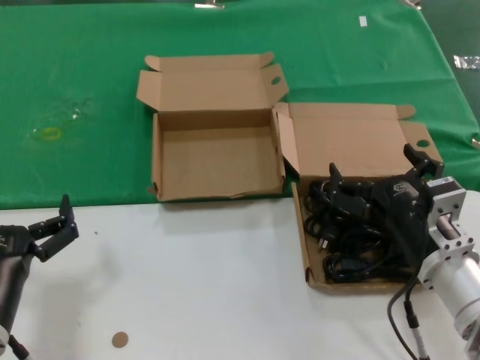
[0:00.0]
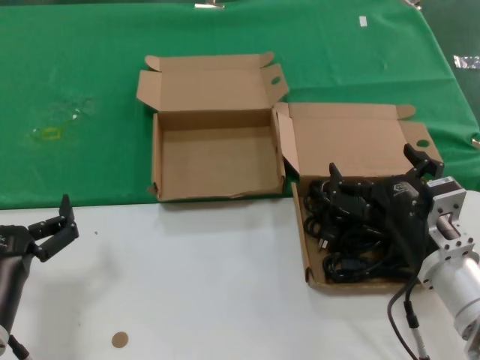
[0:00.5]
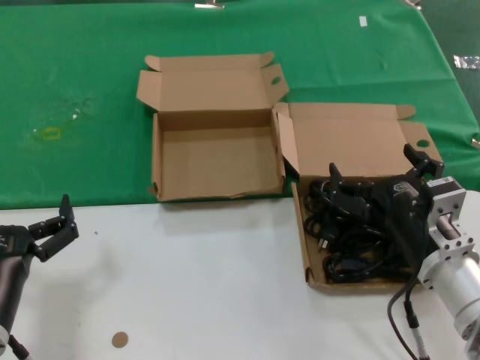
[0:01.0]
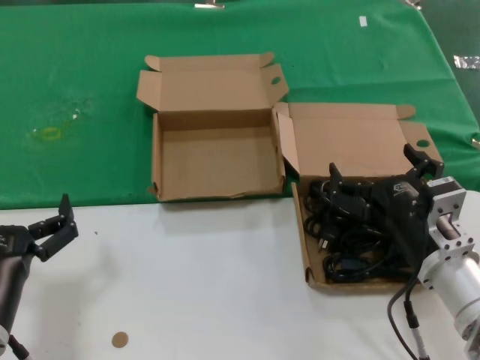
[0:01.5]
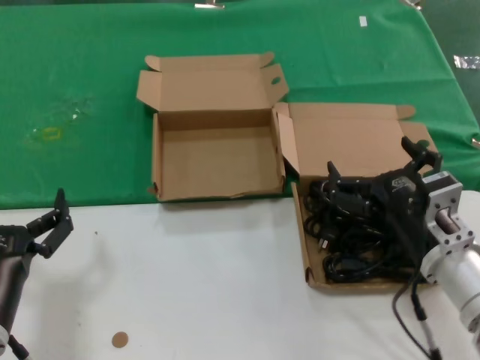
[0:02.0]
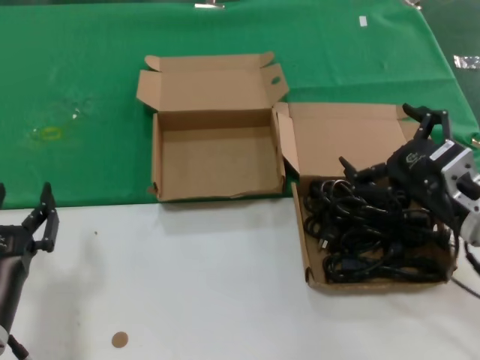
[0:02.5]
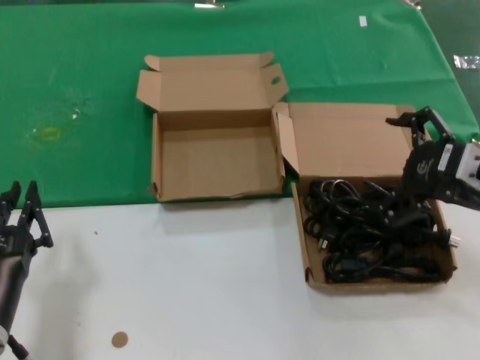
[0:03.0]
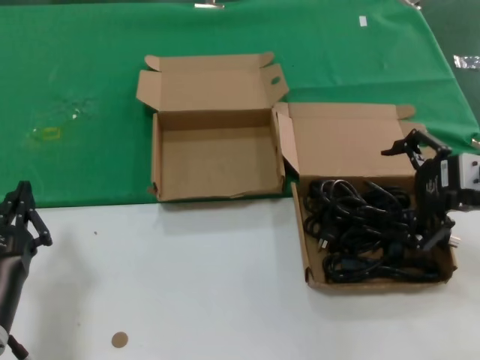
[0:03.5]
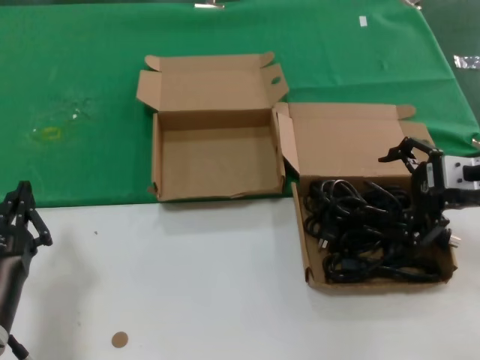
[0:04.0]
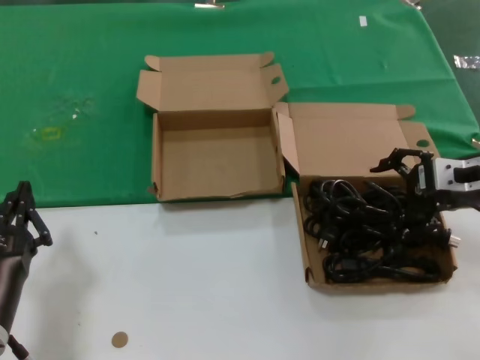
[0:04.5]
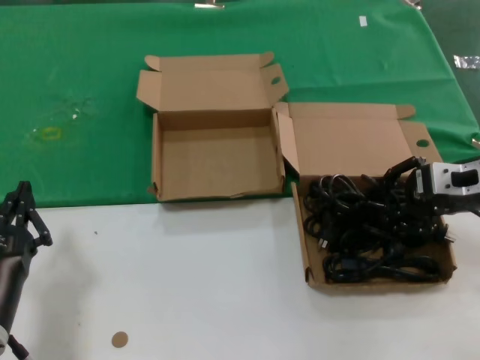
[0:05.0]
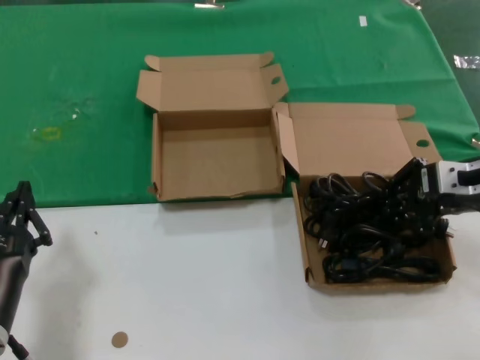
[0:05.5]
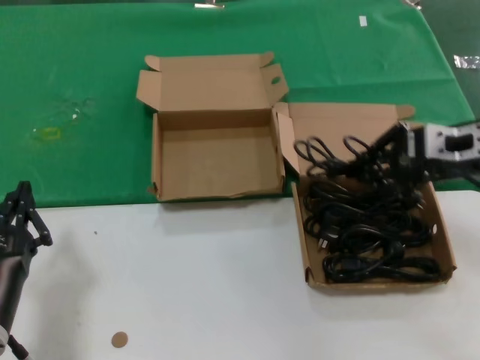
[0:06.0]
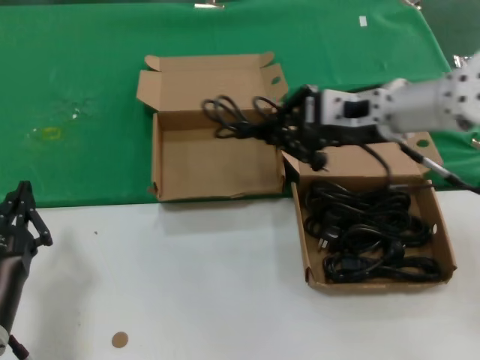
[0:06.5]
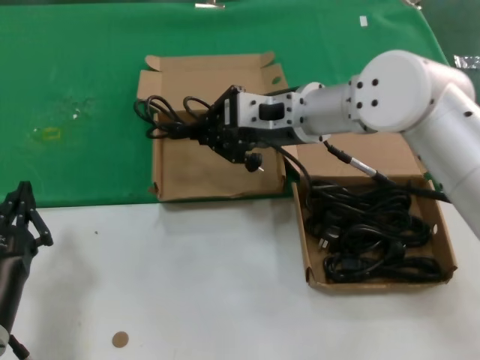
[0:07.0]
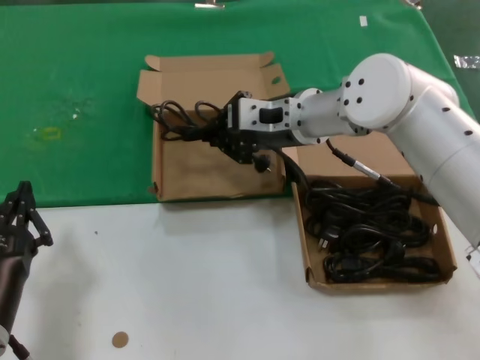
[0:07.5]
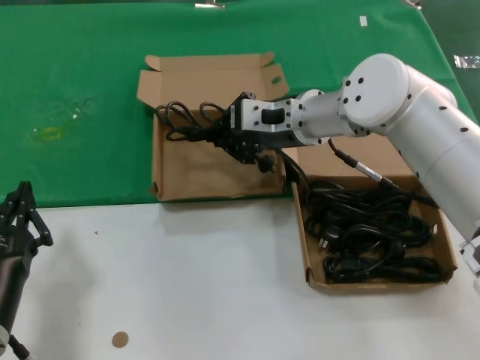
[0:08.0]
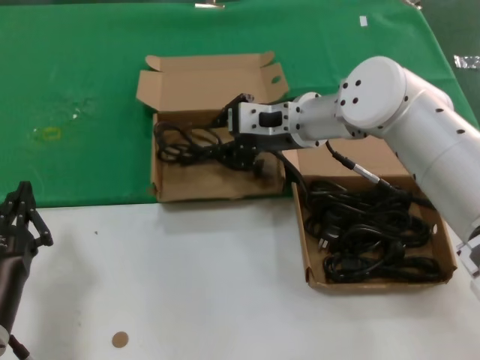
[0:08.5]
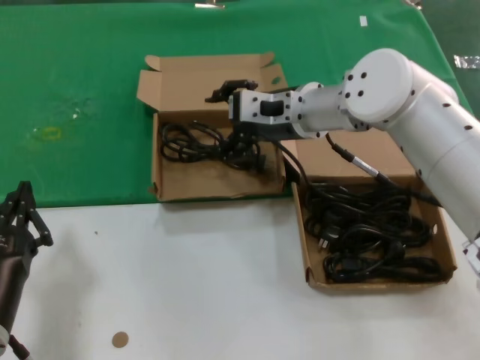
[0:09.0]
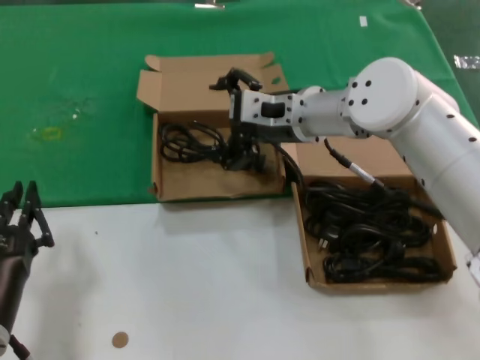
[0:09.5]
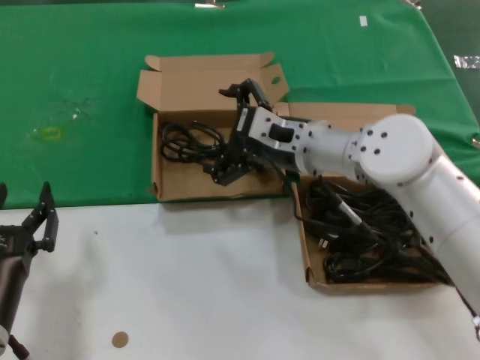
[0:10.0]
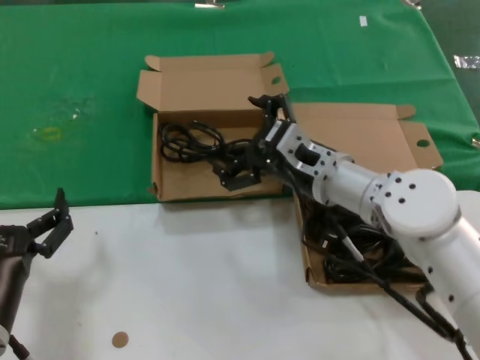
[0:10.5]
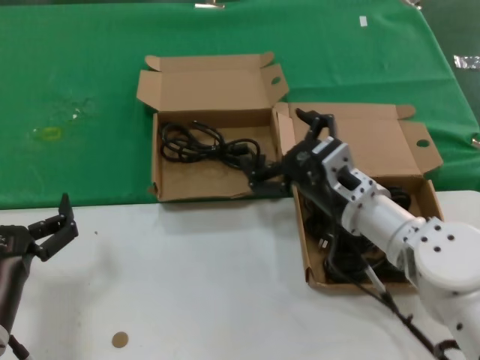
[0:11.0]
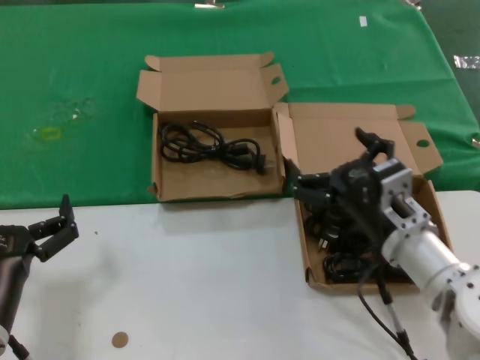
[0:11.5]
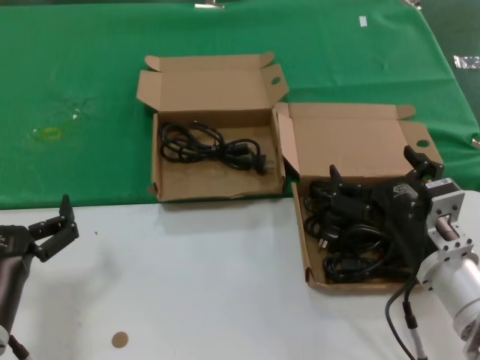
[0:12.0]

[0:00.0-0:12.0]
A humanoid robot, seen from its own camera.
Task of the whole recording: take the parts from the box containing them and put them into an empty box.
Step, 0:00.0 to 0:05.0: Grasp the data cable.
Step, 0:06.0 to 0:08.5: Place the data cable in the another box.
0:00.0 to 0:02.0: Both hands stay put.
0:02.0 to 0:04.0: The right hand goes roughly 20 cm upward, to the right and forward.
0:04.0 to 0:06.0: The hands move only a little.
0:06.0 to 0:08.0: The right hand is displaced to the left and forward by about 25 cm.
0:08.0 to 0:10.0: The right hand changes place by approximately 5 cm.
0:10.0 to 0:12.0: The right hand is displaced backward, downward and to the right by approximately 25 cm.

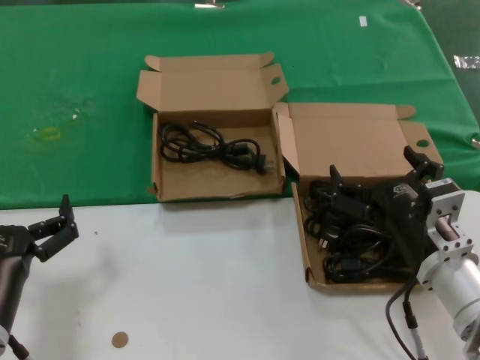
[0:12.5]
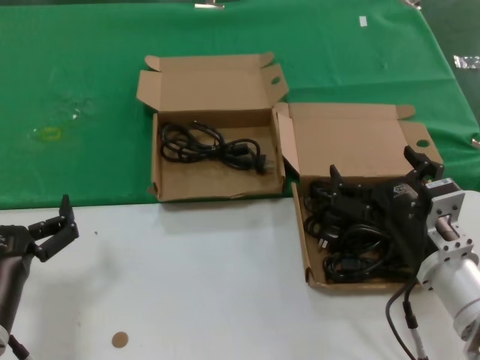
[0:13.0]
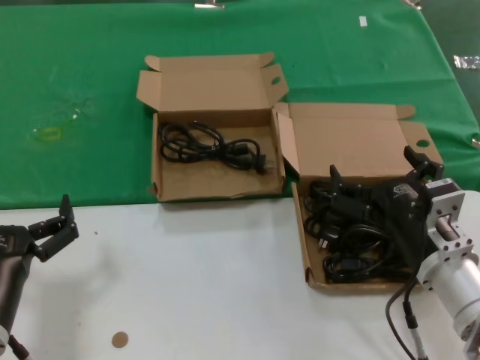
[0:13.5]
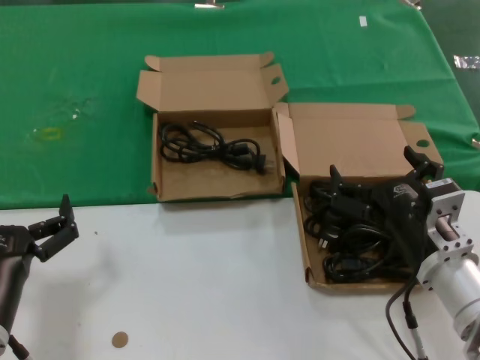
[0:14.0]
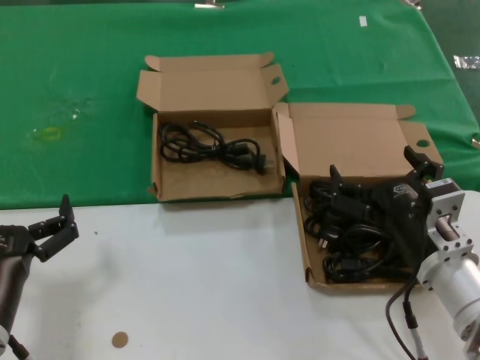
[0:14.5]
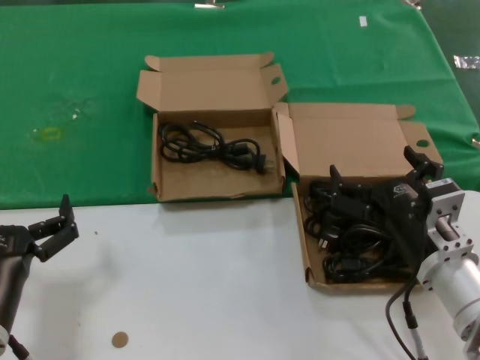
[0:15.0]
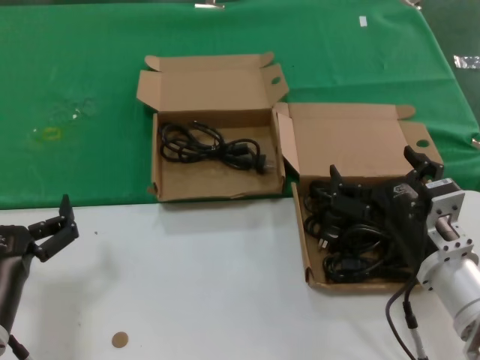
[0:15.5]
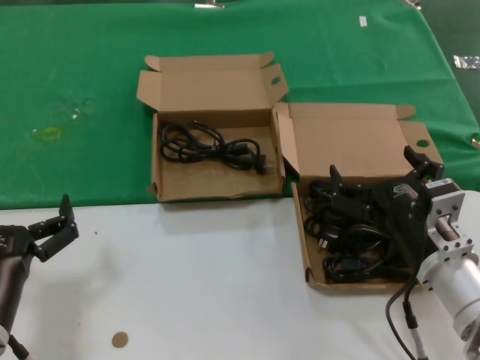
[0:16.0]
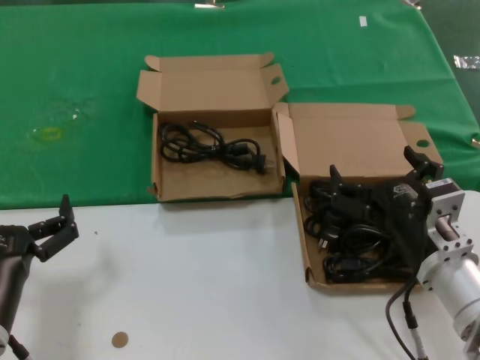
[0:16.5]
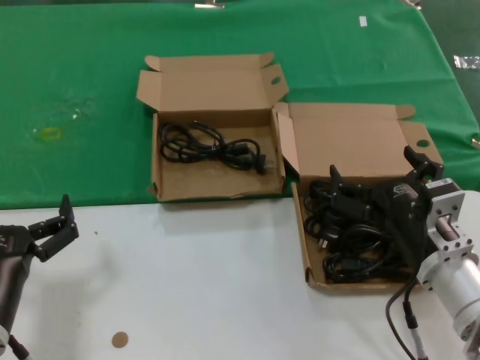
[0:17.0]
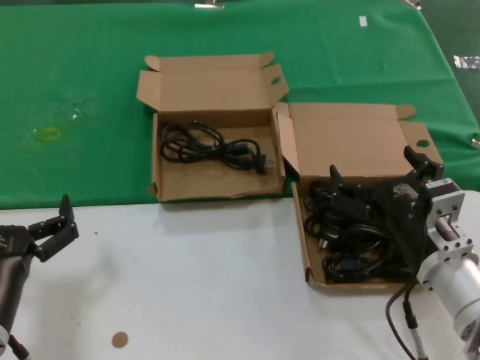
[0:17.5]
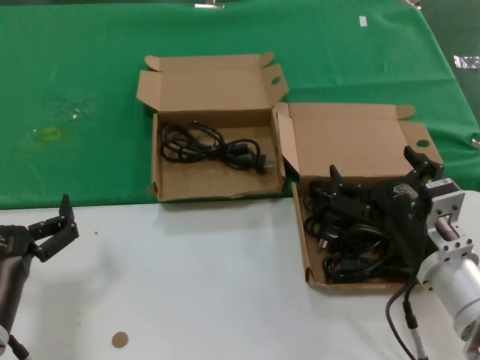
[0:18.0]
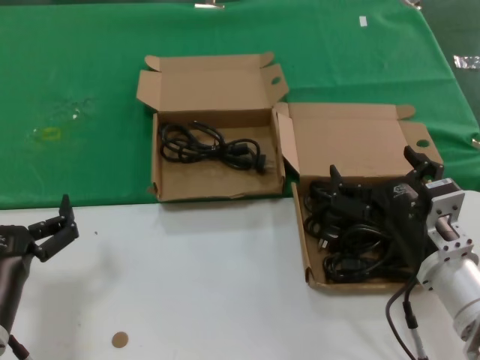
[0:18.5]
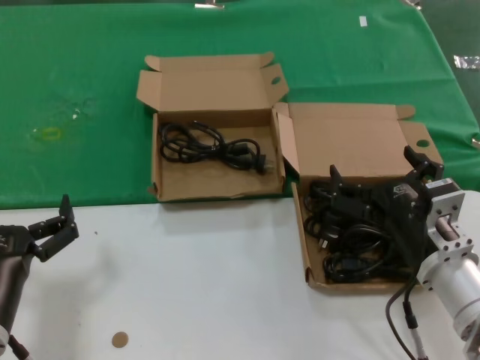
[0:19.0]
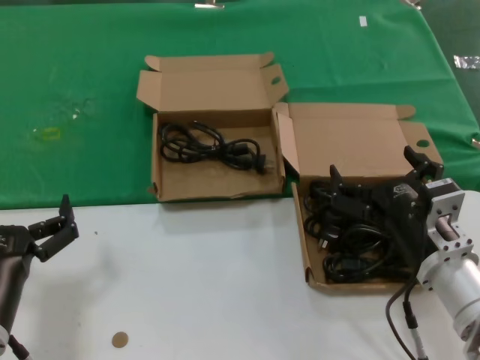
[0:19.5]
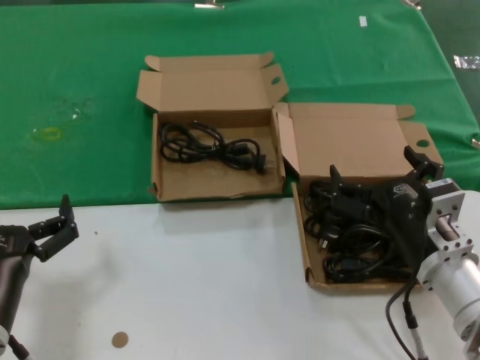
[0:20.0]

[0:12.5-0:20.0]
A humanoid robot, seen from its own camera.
Task of the whole recording: take the parts from the box containing them and put them into an empty box.
0:12.5 to 0:20.0: Neither hand changes place.

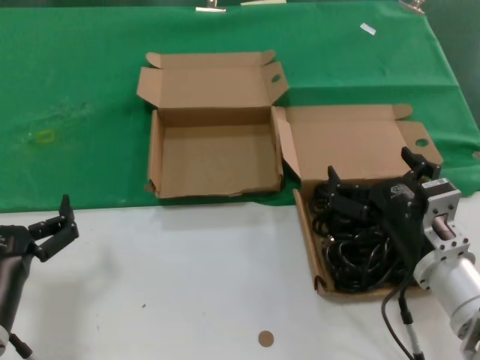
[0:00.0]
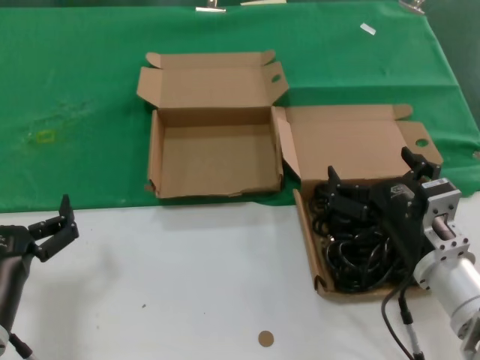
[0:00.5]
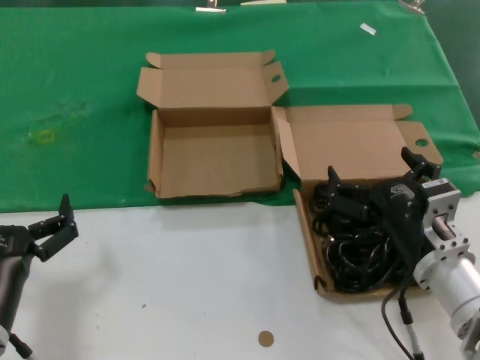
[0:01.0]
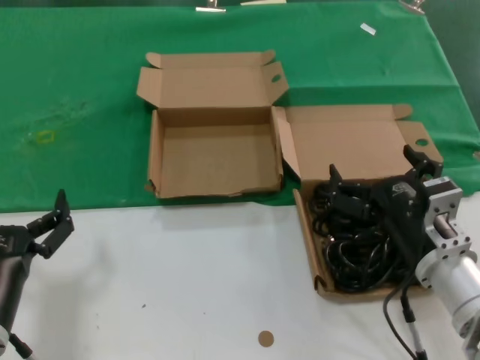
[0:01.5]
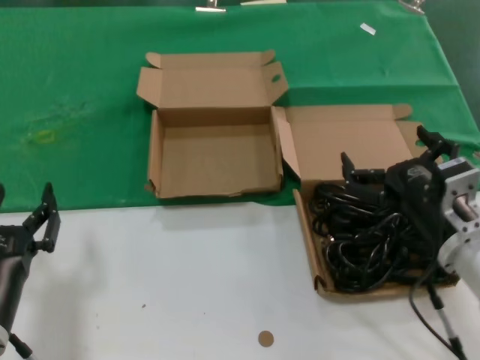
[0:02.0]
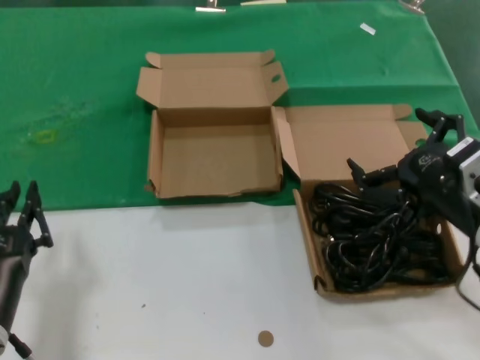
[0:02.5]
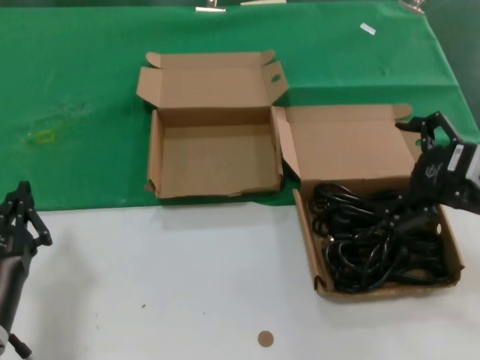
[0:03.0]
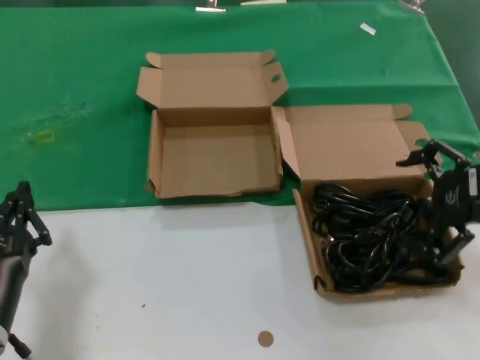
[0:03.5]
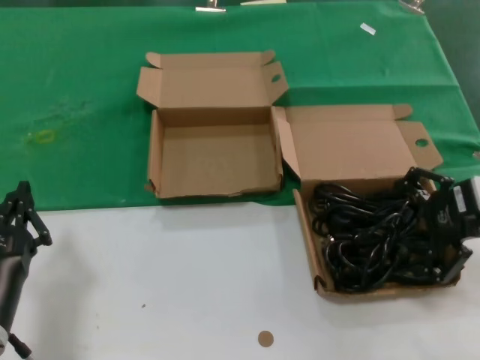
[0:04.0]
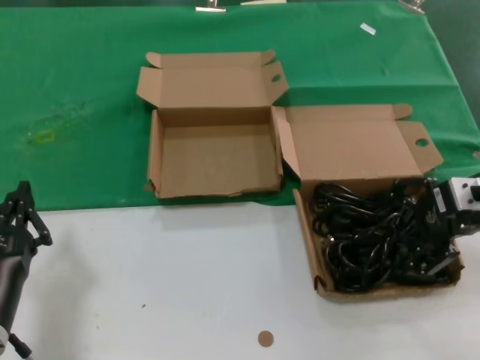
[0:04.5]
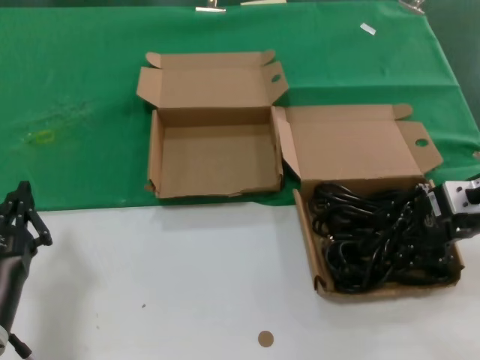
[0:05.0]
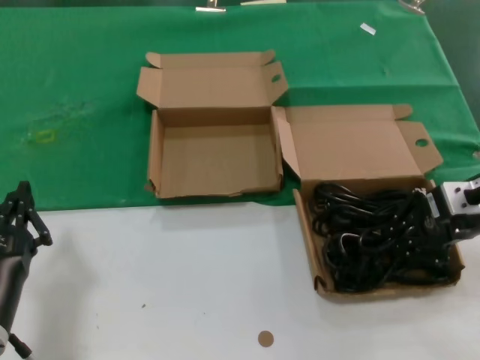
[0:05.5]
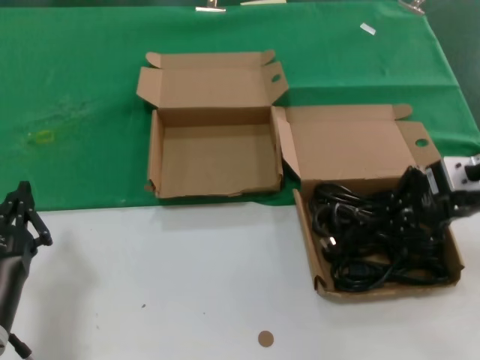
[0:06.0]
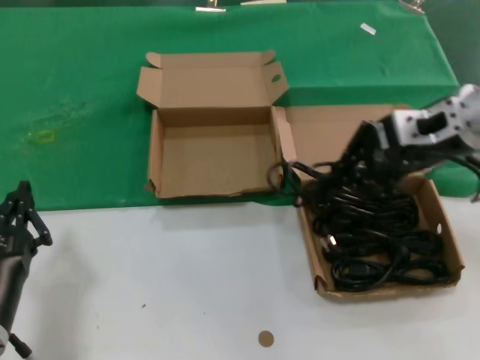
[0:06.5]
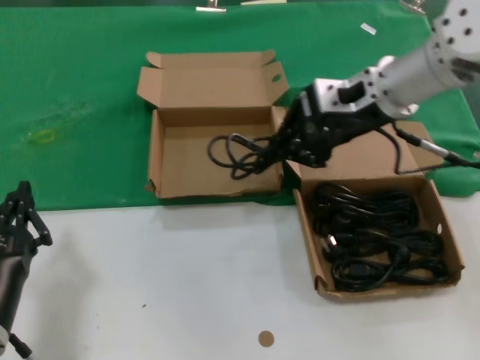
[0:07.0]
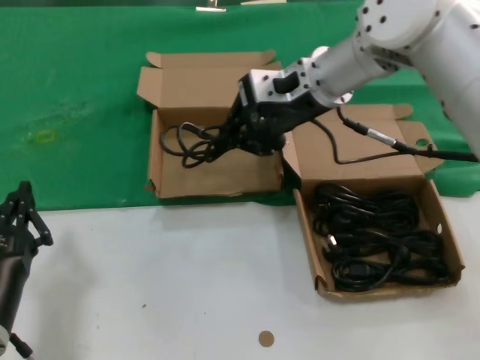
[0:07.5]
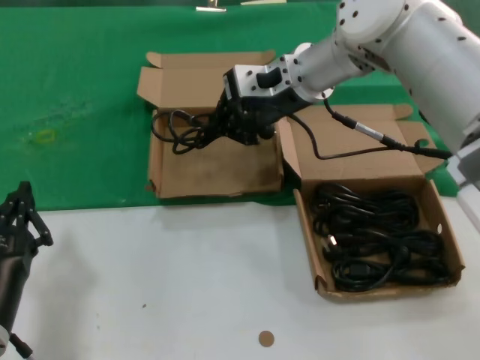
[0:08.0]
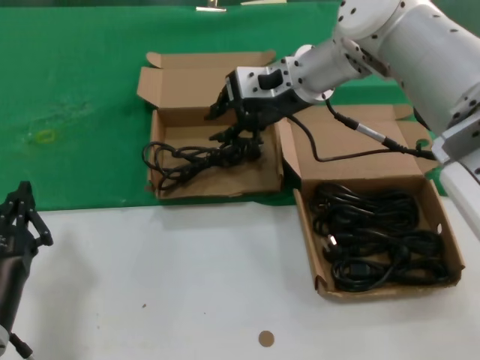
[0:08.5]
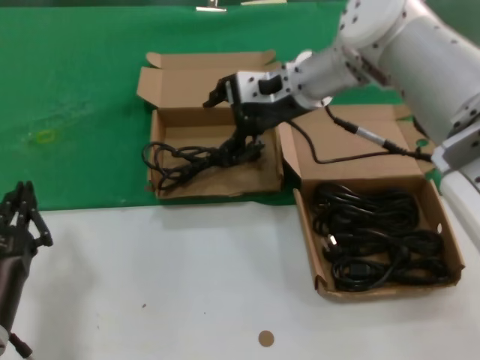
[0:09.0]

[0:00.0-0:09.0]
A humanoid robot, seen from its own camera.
Task of the whole recording: take the parts from the box containing them and put them into an empty box.
Step, 0:00.0 to 0:05.0: Grasp the data cable.
Step, 0:05.5 to 0:08.0: Place the data cable in the another box.
0:00.0 to 0:02.0: The hands make only small movements.
0:02.0 to 0:04.5: The right hand is displaced to the right, upward and forward by some 20 cm.
0:04.5 to 0:07.0: The right hand is displaced to the left, upward and forward by roughly 20 cm.
0:07.0 to 0:09.0: The right hand shifts approximately 10 cm to the left and forward.